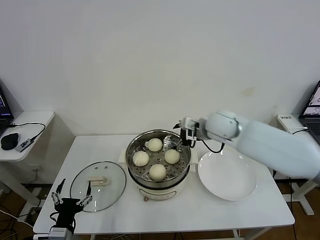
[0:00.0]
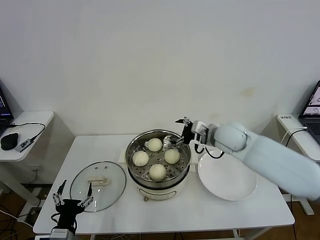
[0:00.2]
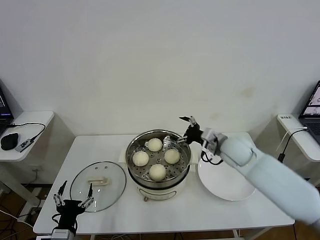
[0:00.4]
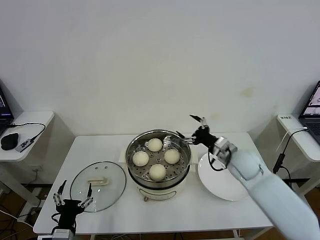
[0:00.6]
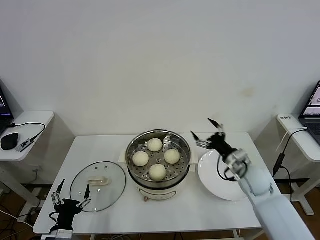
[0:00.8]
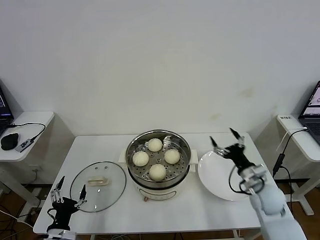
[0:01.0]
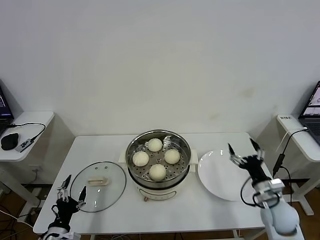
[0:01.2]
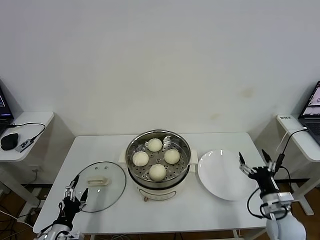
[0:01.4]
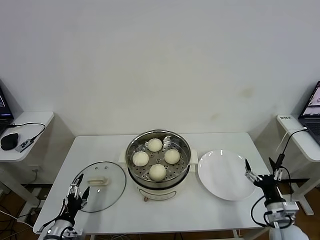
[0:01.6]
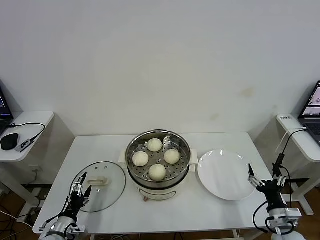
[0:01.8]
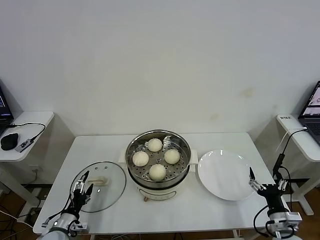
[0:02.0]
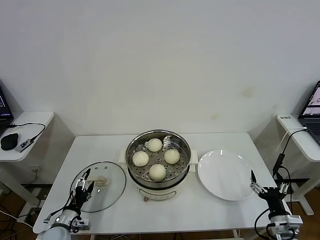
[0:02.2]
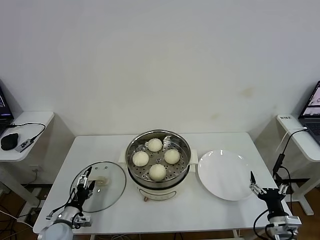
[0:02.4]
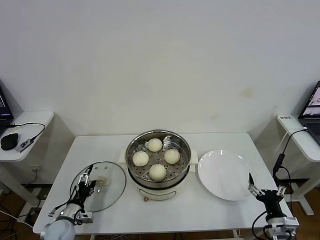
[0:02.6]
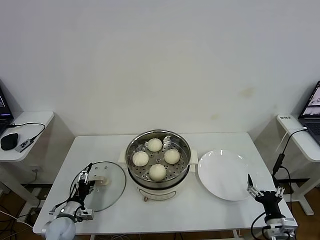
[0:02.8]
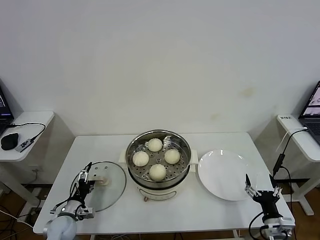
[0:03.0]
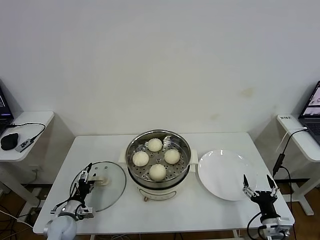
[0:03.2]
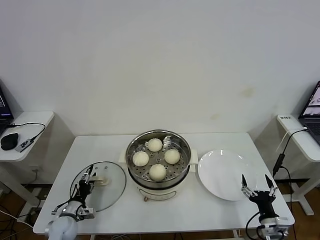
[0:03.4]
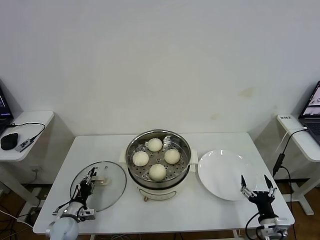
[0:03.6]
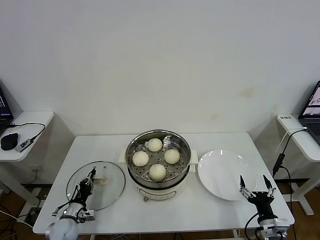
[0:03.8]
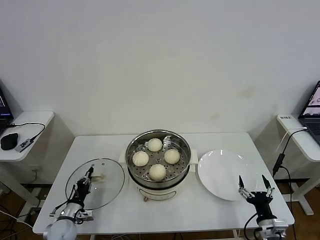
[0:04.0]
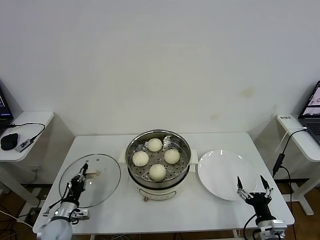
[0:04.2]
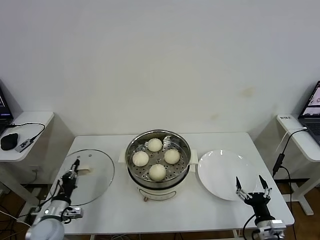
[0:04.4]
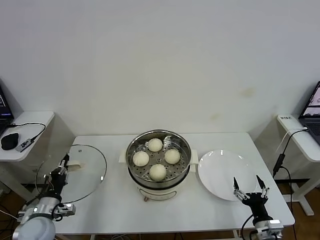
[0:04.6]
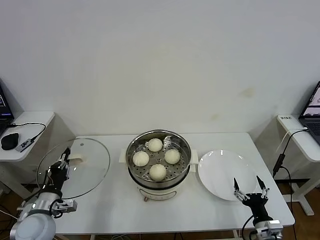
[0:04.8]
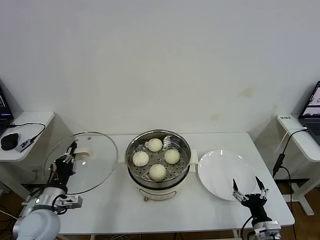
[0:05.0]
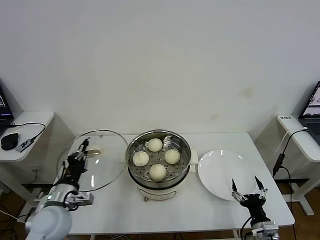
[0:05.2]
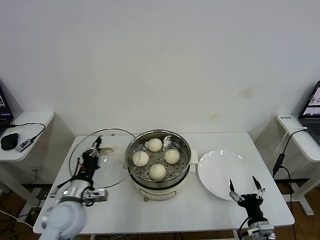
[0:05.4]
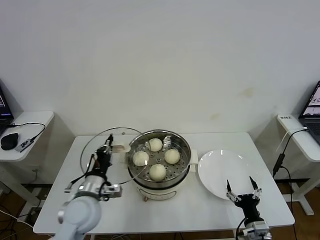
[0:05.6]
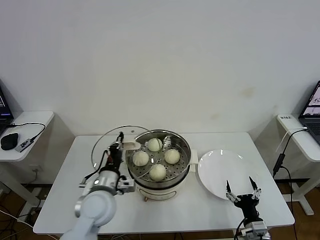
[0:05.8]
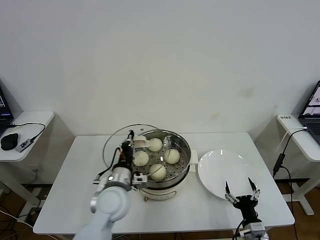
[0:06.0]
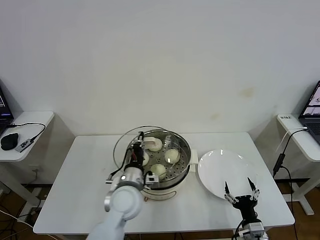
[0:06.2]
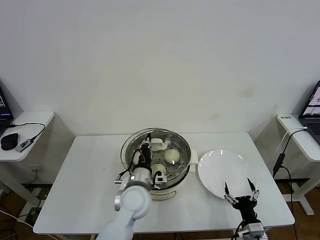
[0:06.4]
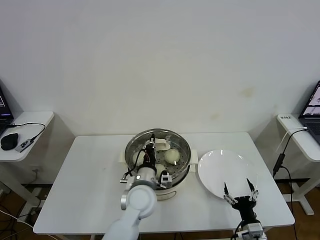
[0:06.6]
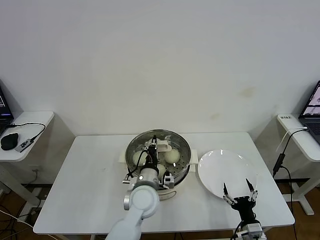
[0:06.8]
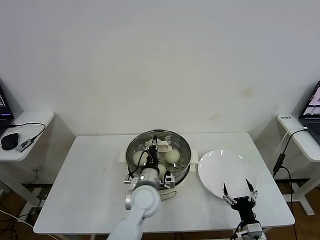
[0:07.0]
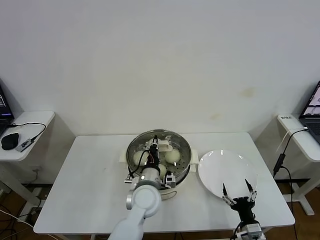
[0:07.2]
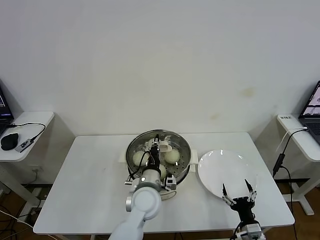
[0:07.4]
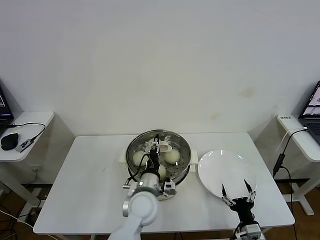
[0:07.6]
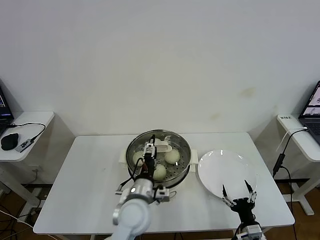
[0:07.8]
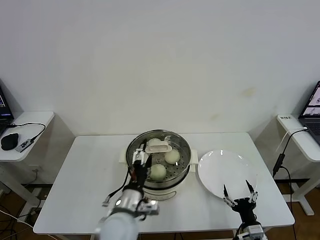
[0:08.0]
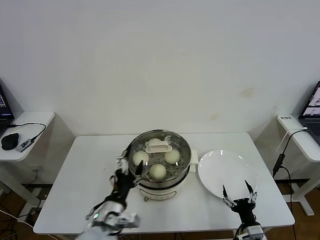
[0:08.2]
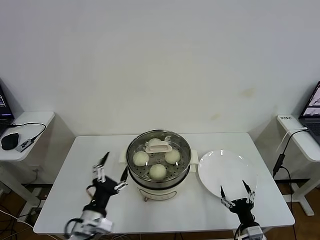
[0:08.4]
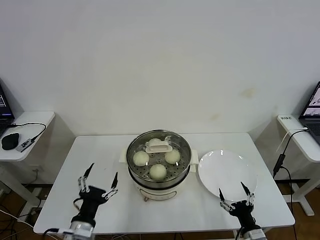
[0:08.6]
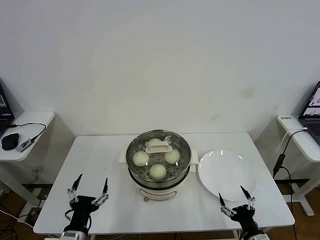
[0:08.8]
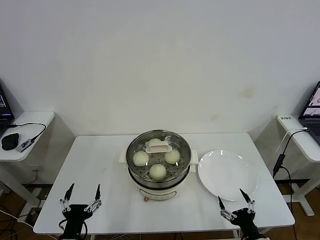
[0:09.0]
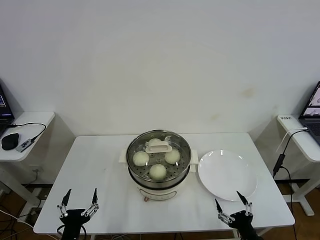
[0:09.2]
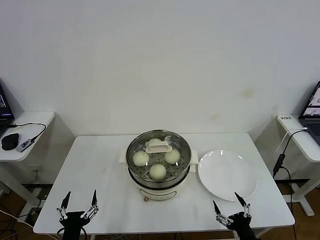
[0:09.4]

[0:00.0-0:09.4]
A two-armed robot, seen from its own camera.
Task of the whole recording: take steamed baozi put them in steamer then cover it.
Step, 0:00.0 to 0:04.0: Grasp the pot lid with left gripper.
Step, 0:04.2 to 0:07.6: Place the pot lid on the steamer with left gripper.
0:00.0 to 0:01.6: The right gripper is displaced backward, downward and to the right by about 40 cm; the left gripper travels downward and to the left by approximately 10 cm.
0:01.6 to 0:03.2: The left gripper moves forward, roughly 10 cm. Meanwhile the right gripper ends up roughly 5 cm from where it was.
0:03.2 to 0:04.8: The left gripper shifts some 15 cm upward, and closes its fingers.
0:04.8 to 0:06.2: The left gripper is displaced to the right by about 25 cm.
0:06.2 to 0:07.8: The left gripper moves about 5 cm, and opens up.
0:07.8 to 0:09.4: The left gripper moves to the left and backward, some 25 cm; the right gripper heads backward, covering roughly 5 cm.
